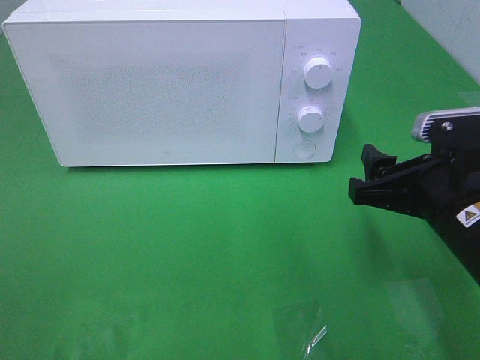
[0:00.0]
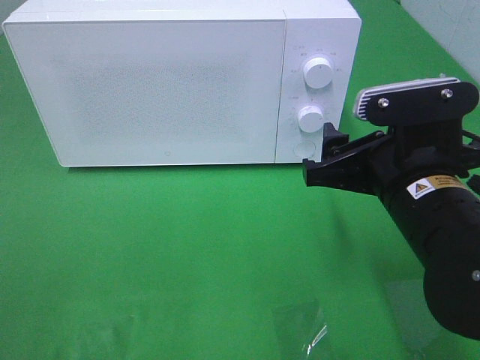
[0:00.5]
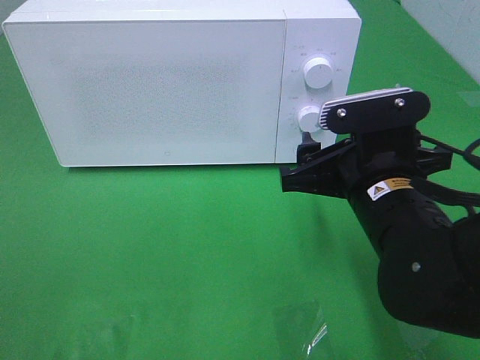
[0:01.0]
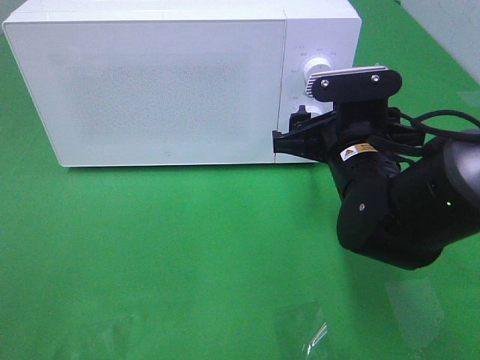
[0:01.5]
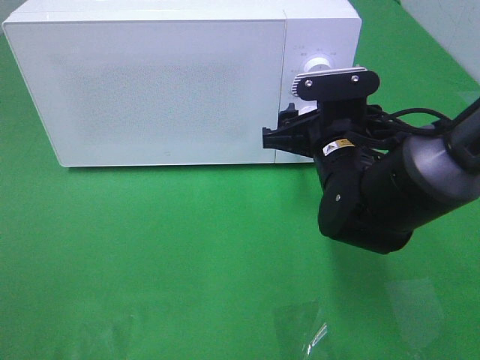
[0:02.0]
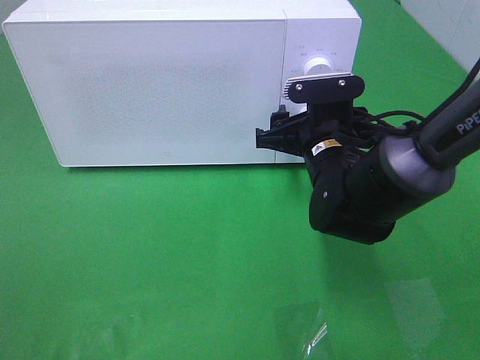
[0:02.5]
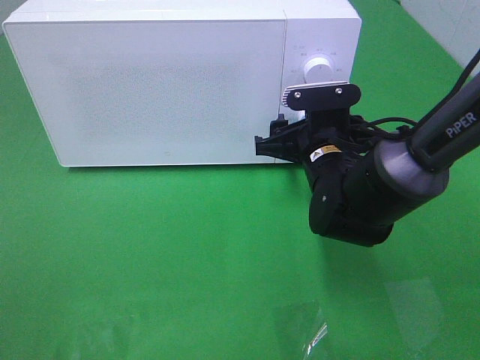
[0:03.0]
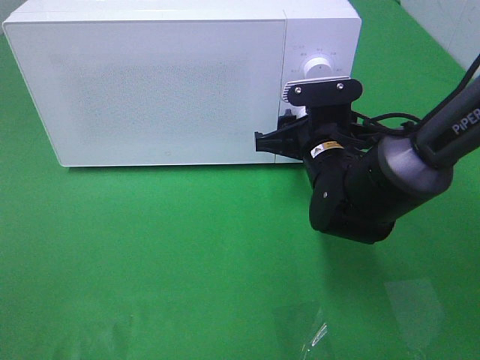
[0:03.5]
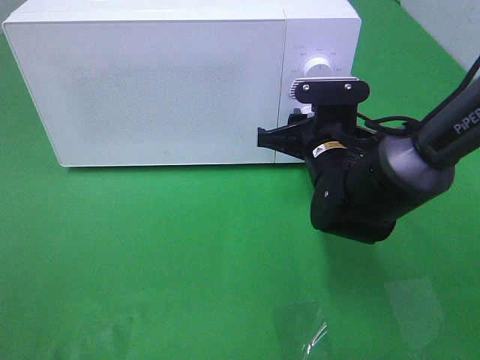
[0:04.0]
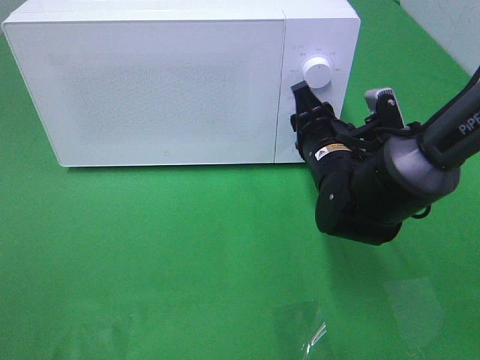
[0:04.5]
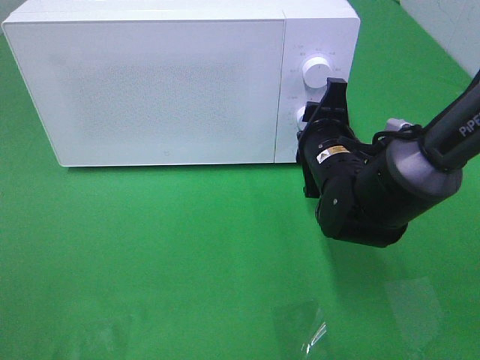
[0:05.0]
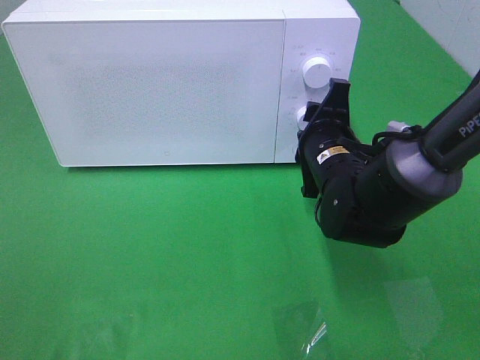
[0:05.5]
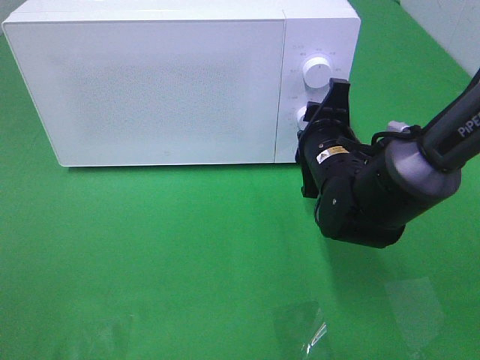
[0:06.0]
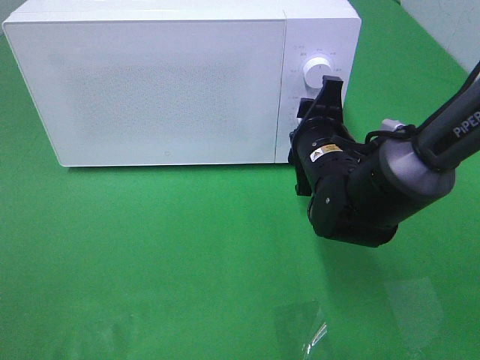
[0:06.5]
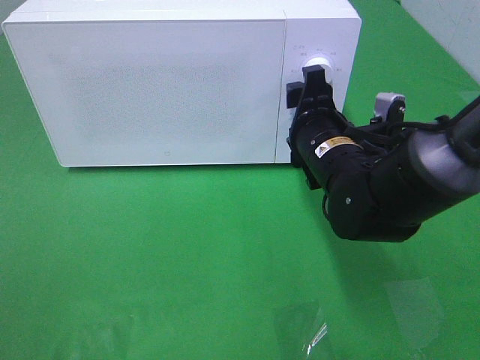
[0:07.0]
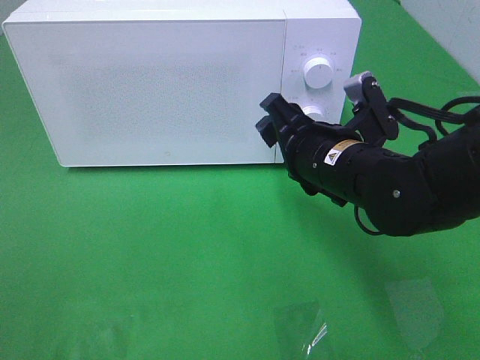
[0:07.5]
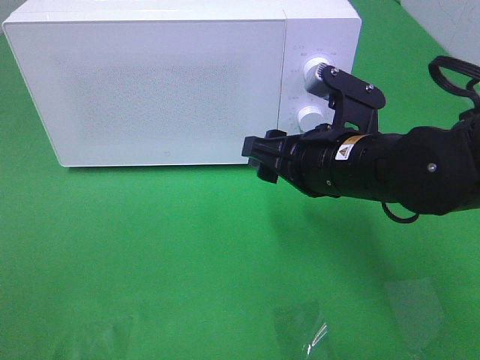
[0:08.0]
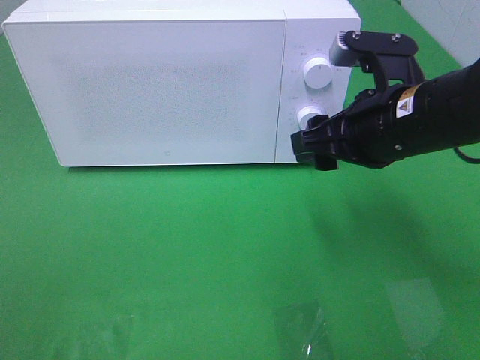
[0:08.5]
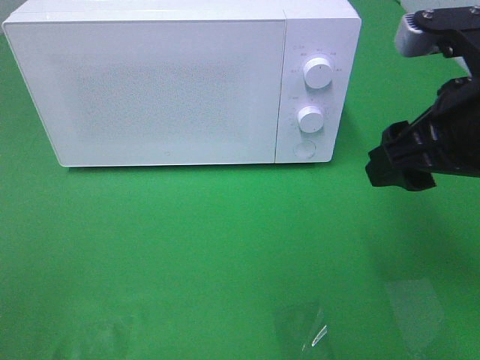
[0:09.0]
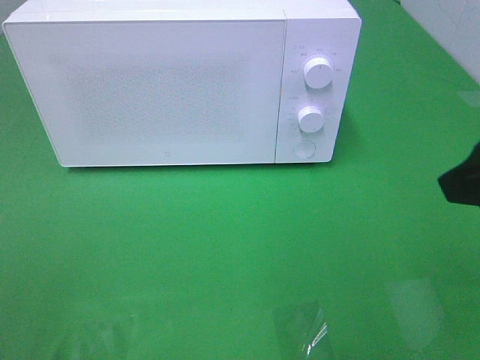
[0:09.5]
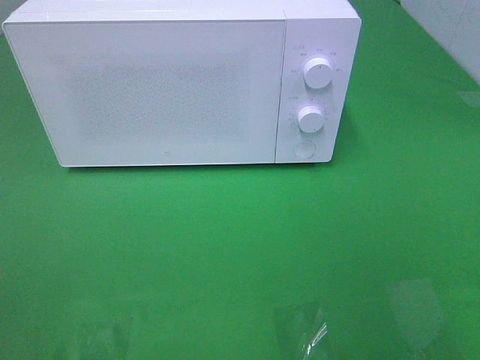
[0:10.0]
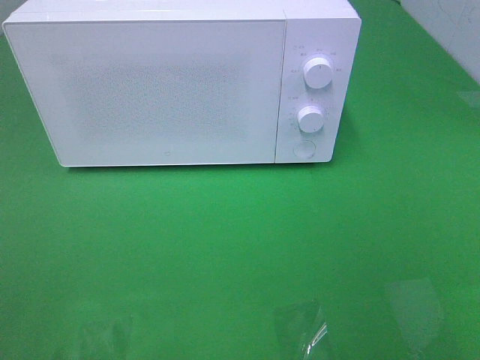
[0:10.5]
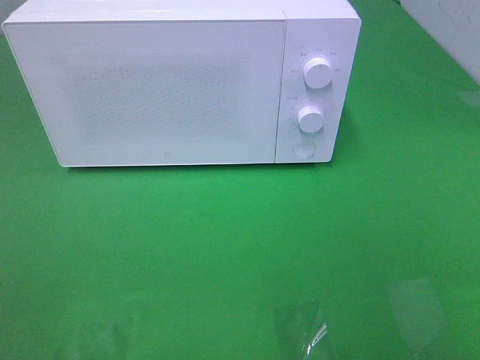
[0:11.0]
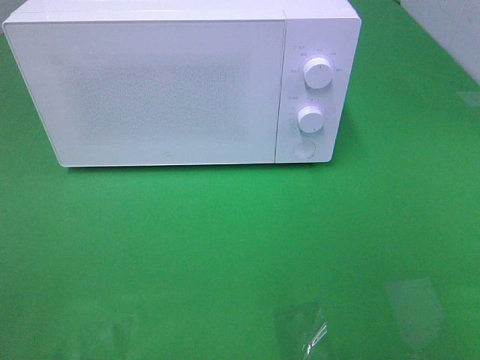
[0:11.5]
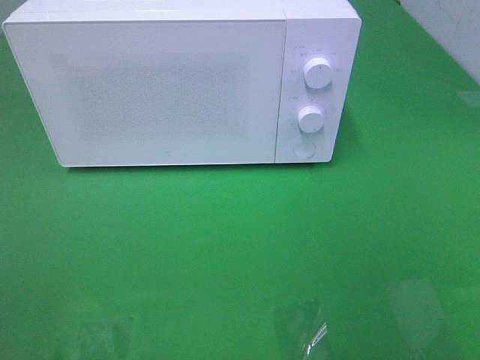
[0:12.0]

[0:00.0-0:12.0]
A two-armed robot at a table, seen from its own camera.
Task of the whole recording: Heat the burger.
Step, 0:00.0 to 0:03.5: Right hand: twist timer button.
0:00.0 to 0:02.0: The right gripper heads forward and to the left, covering some 15 cm.
0:02.0 to 0:04.0: The right gripper closes up.
0:06.0 to 0:08.0: The right gripper is displaced backward and upward by approximately 10 cm.
0:08.0 to 0:10.0: The right gripper is displaced backward, to the right and upward by some 30 cm.

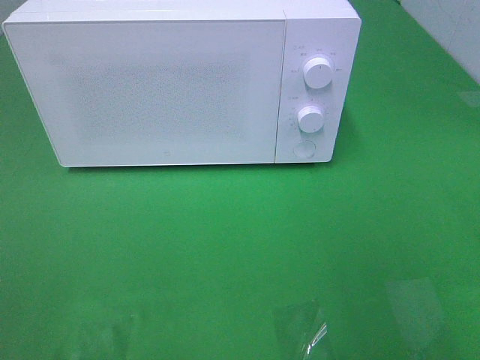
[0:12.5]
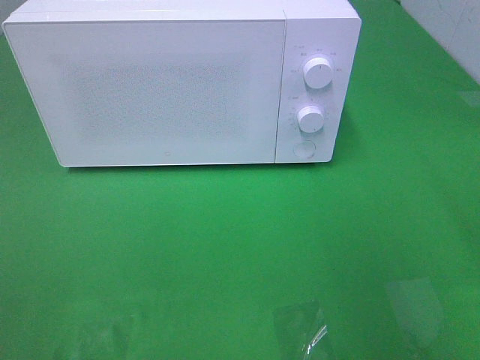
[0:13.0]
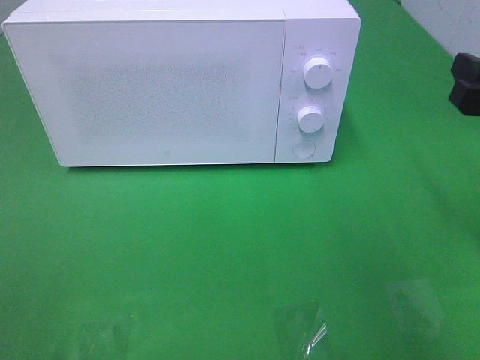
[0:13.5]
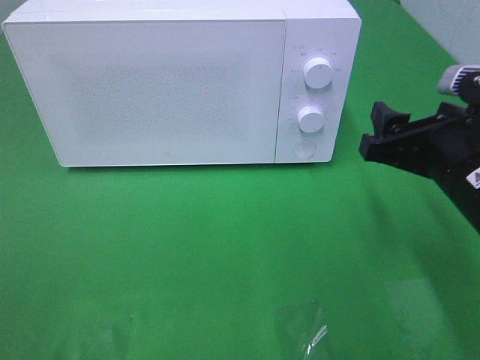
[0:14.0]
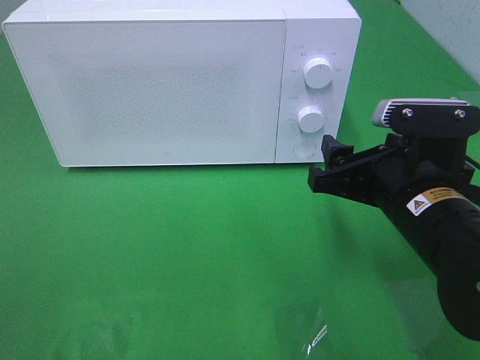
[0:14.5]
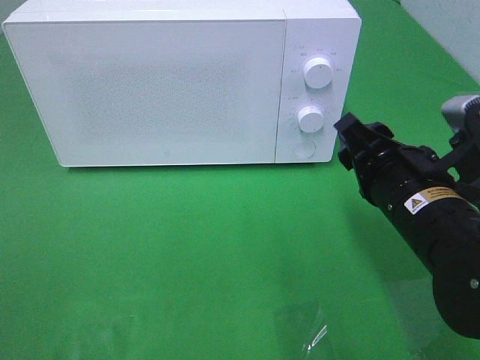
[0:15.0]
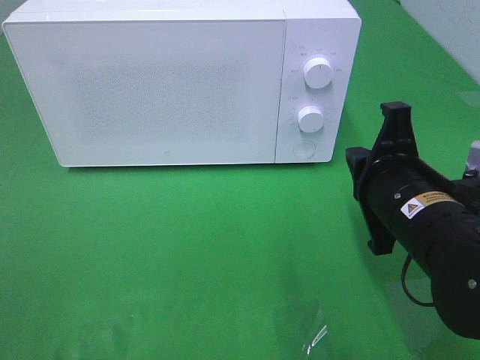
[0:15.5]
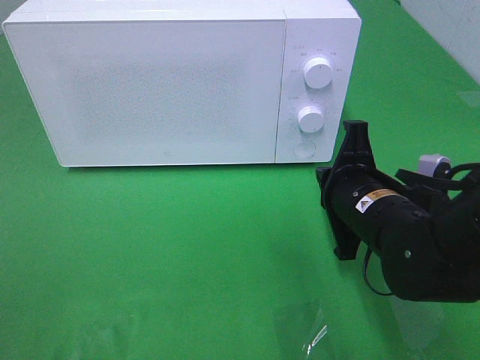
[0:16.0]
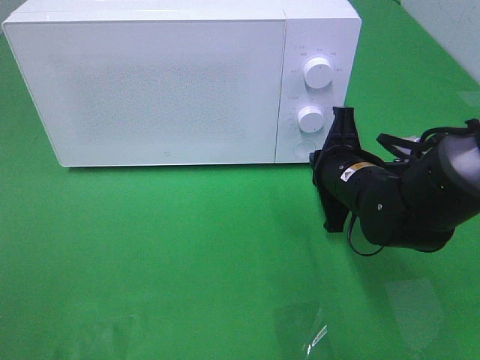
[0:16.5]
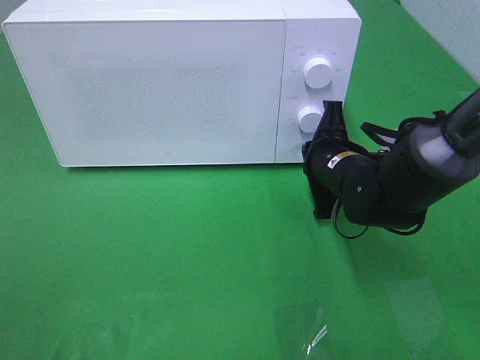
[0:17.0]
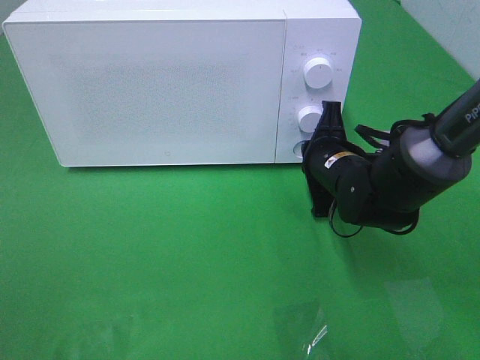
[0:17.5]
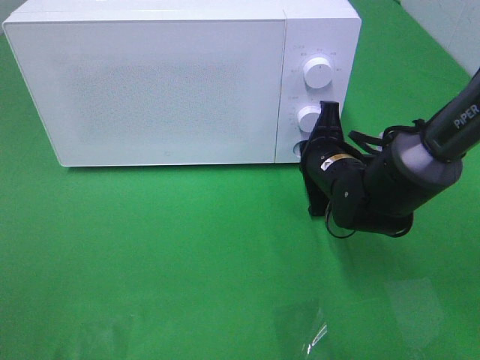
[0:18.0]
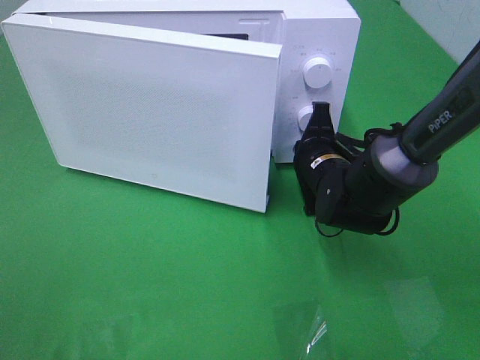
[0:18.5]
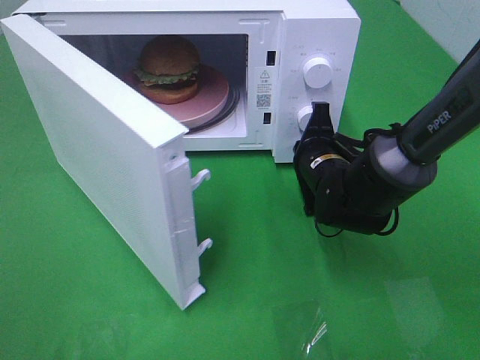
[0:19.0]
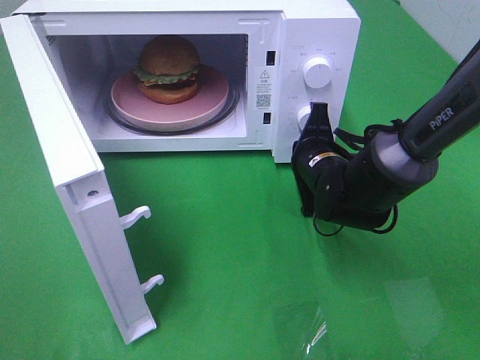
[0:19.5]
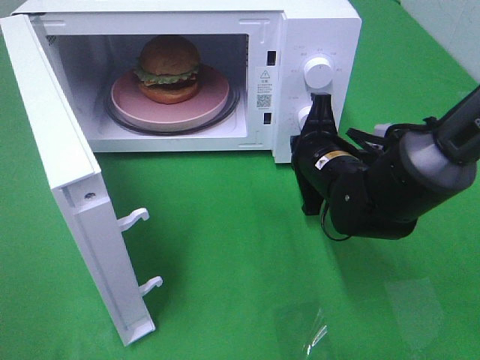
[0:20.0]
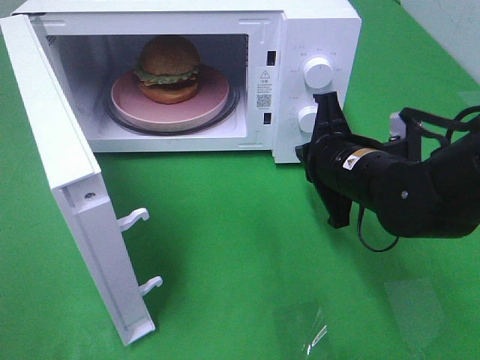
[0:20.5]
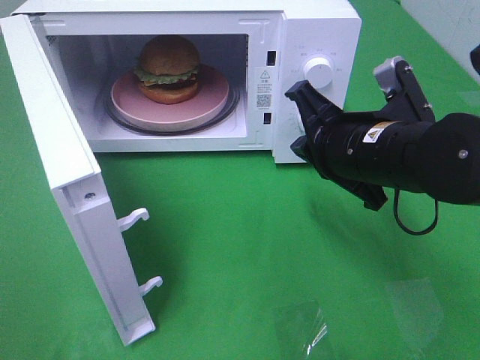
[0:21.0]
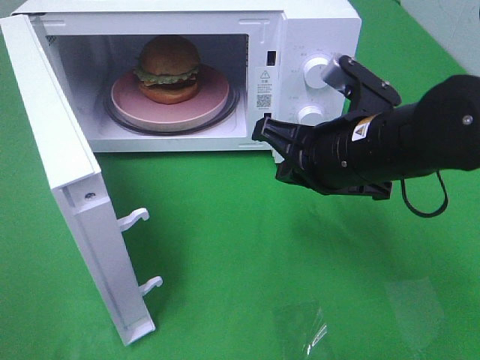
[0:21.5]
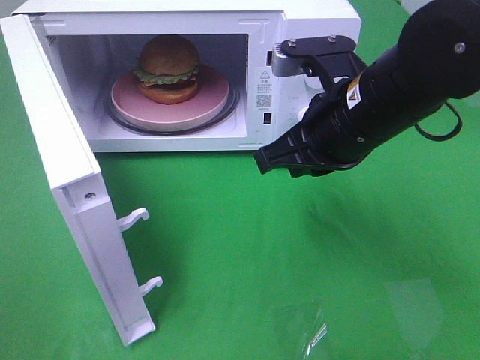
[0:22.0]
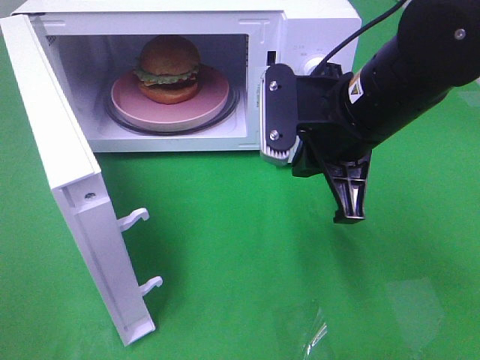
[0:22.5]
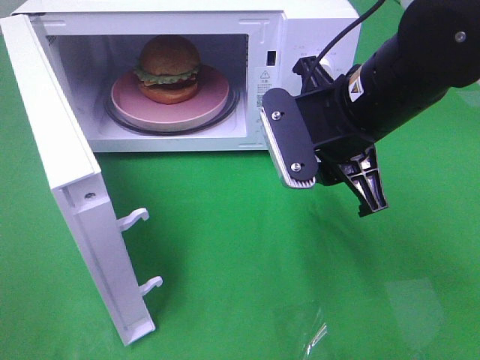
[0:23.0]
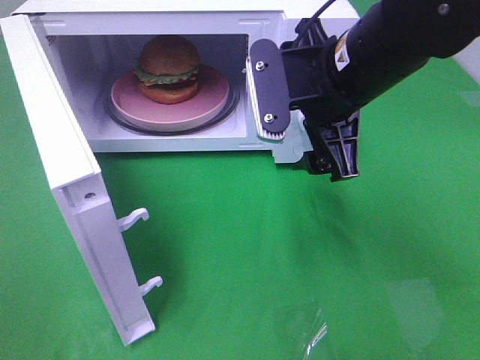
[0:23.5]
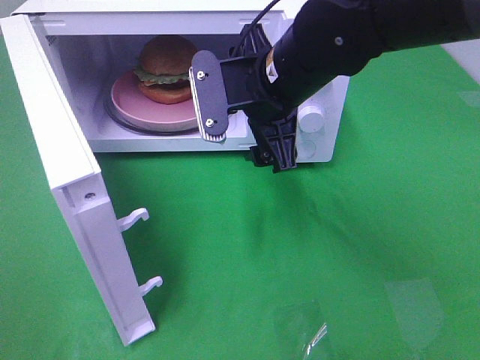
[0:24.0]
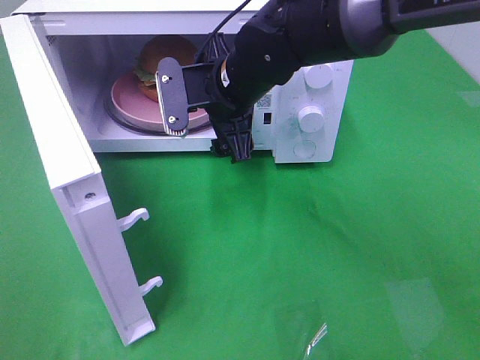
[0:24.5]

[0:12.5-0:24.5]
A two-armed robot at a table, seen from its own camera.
Task of the whole recording: Heat the burger.
Step, 0:12.5 to 0:18.0: Right hand: press the switch.
0:12.5 to 0:14.5: The right gripper heads downward, to the left and forward, covering about 20 cm.
0:14.5 to 0:16.5: The right gripper heads forward and downward, covering approximately 10 cm, and closes.
0:16.5 to 0:18.5: The right gripper changes place by roughly 5 cm.
0:18.5 to 0:20.5: The right gripper goes some 10 cm backward and upward.
0:20.5 to 0:22.5: The right gripper travels upward by approximately 10 cm.
0:22.5 to 0:24.5: The right gripper travels to the left and forward by roughly 15 cm, and opens its fingers.

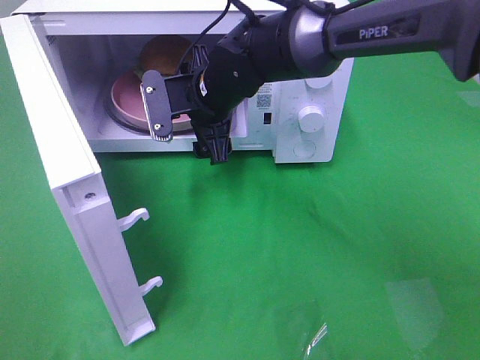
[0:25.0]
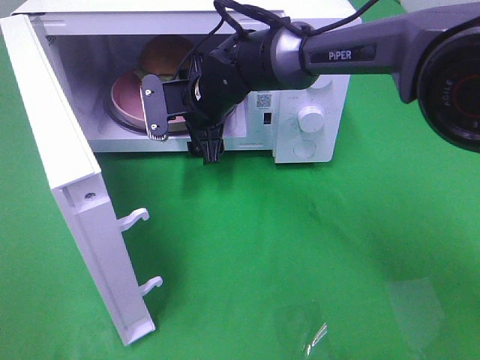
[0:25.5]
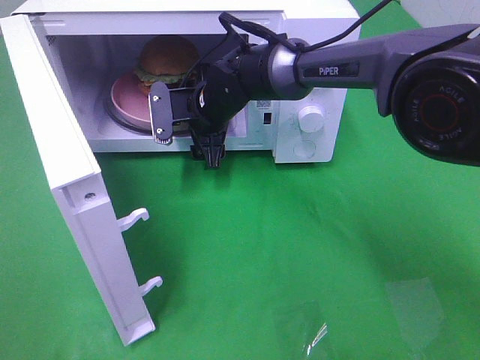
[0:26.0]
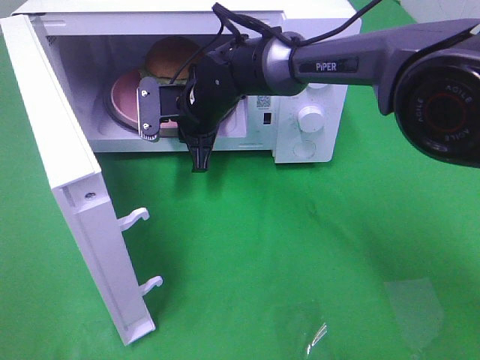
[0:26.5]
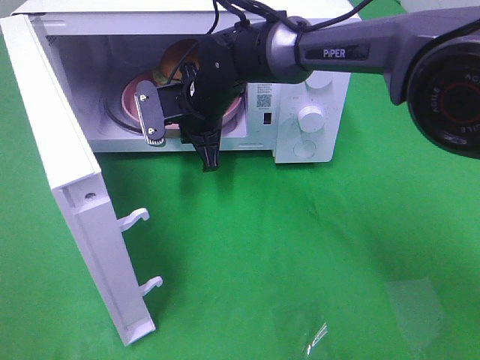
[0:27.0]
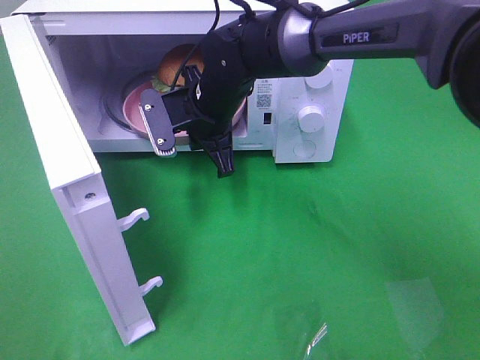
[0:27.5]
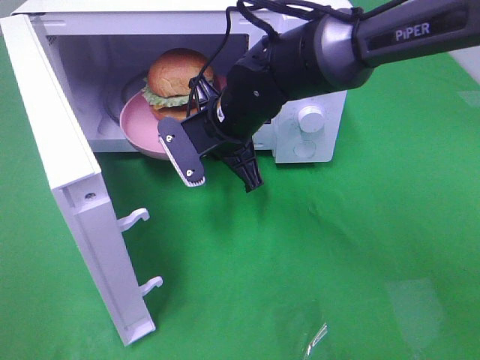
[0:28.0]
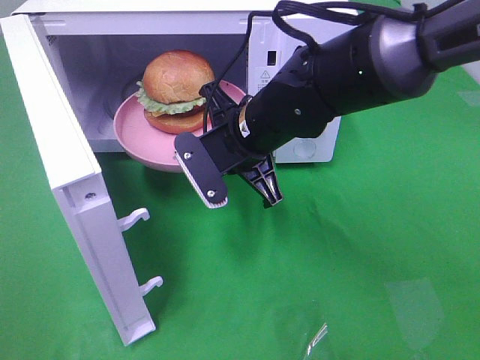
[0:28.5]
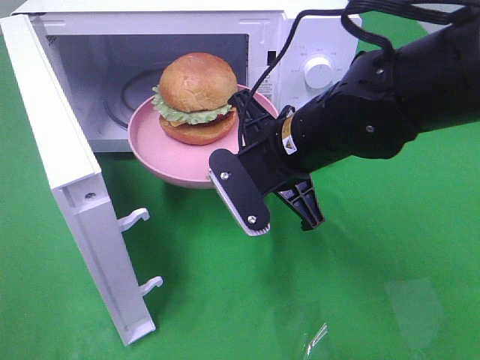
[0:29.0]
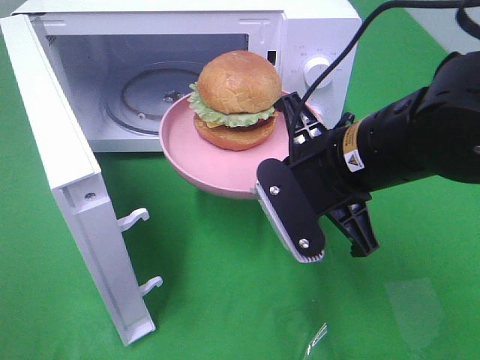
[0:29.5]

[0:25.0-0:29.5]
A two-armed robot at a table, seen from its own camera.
Task of the whole recording: Heat the burger.
0:25.0 to 0:27.0: The right gripper closes up.
0:27.0 to 0:29.5: The right gripper shifts approximately 25 cm backward and to the right.
